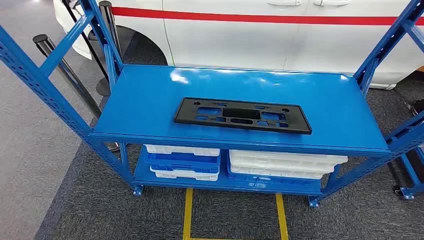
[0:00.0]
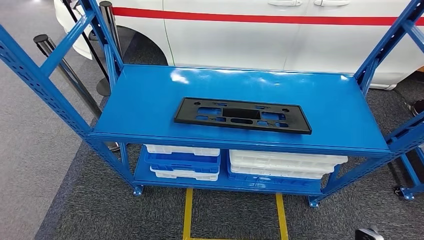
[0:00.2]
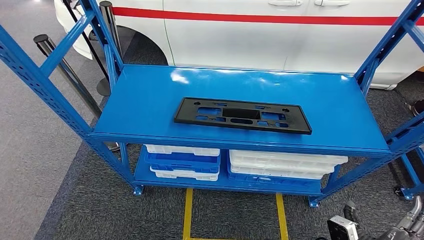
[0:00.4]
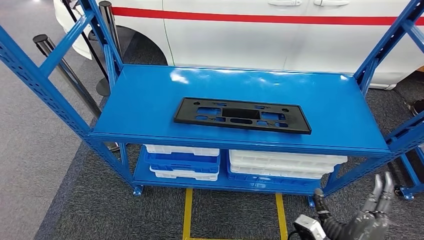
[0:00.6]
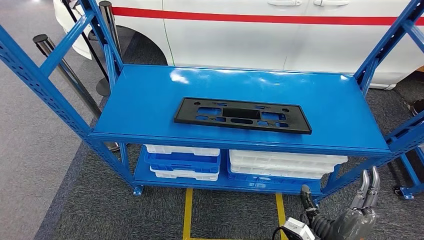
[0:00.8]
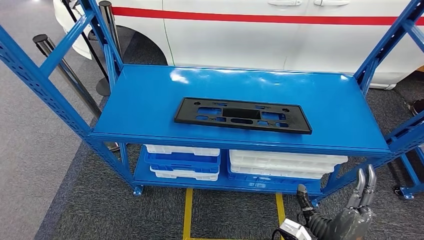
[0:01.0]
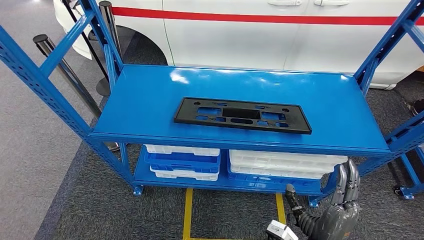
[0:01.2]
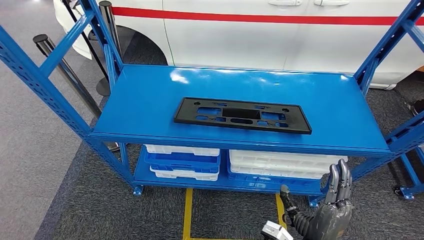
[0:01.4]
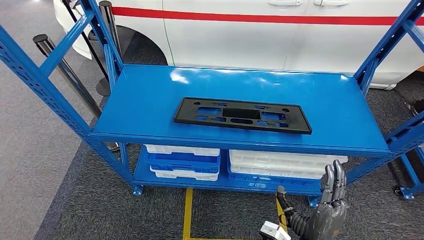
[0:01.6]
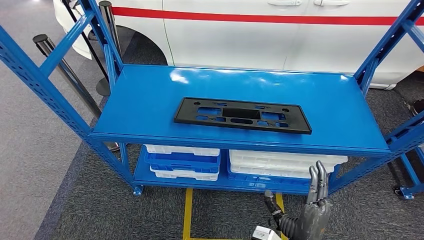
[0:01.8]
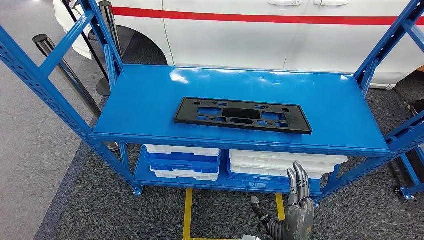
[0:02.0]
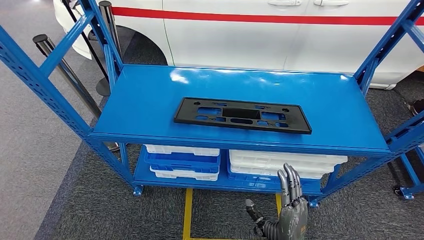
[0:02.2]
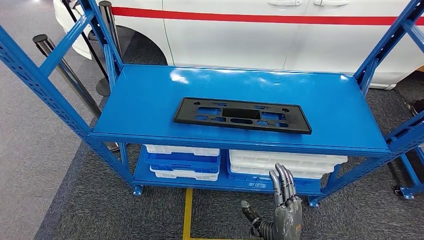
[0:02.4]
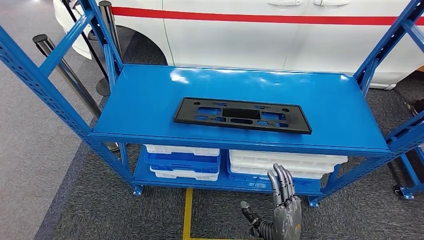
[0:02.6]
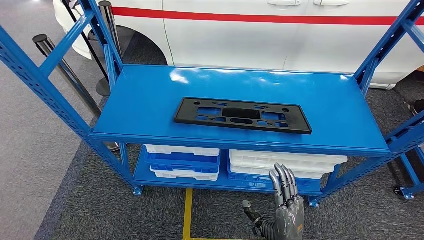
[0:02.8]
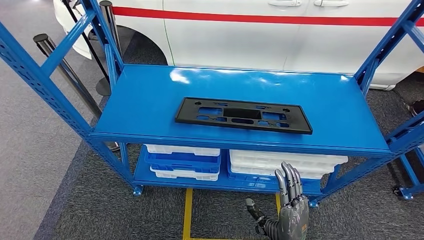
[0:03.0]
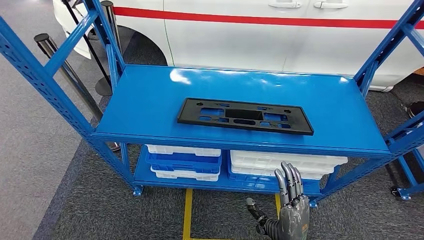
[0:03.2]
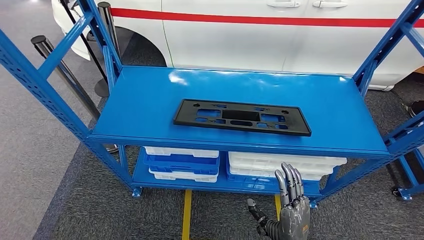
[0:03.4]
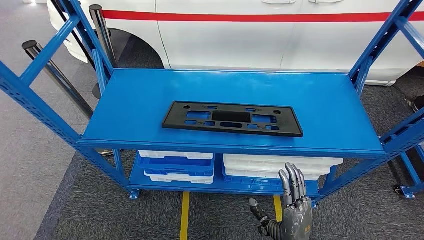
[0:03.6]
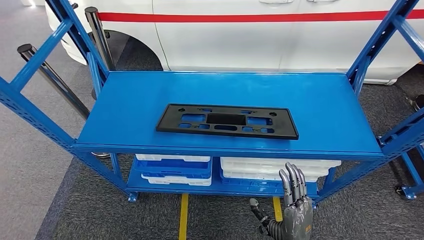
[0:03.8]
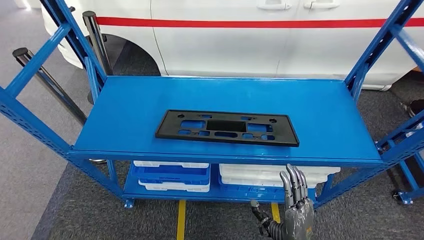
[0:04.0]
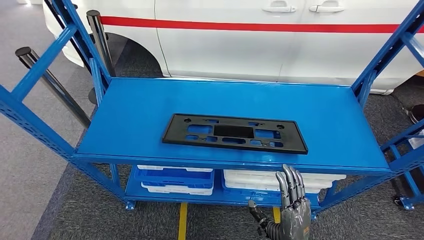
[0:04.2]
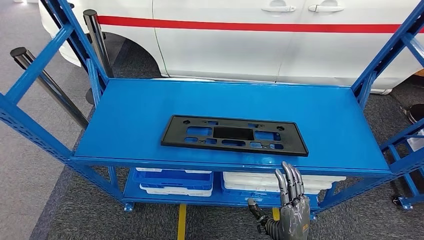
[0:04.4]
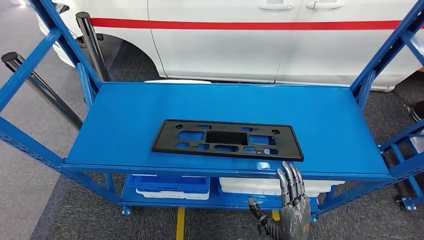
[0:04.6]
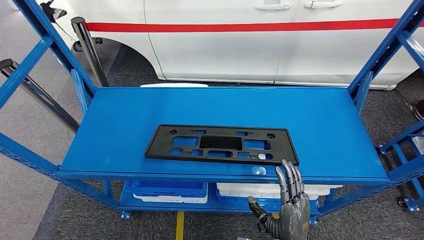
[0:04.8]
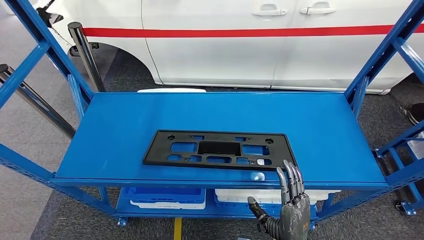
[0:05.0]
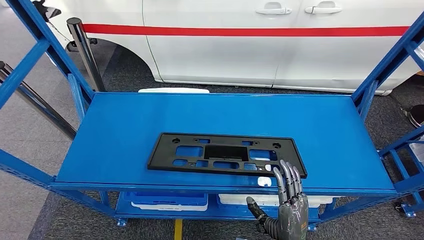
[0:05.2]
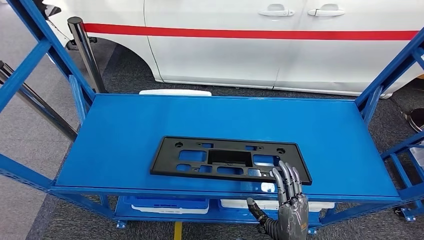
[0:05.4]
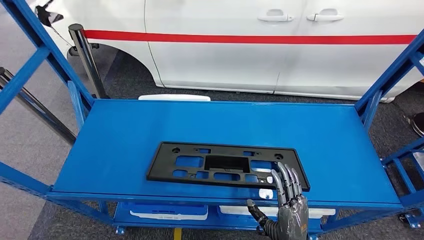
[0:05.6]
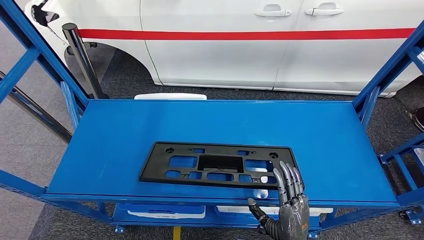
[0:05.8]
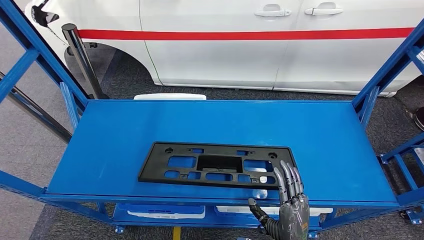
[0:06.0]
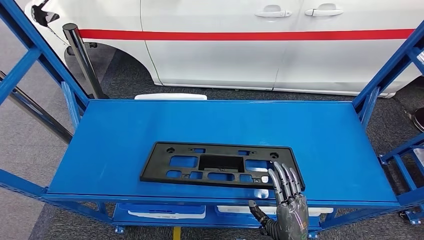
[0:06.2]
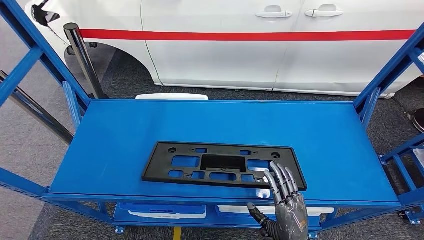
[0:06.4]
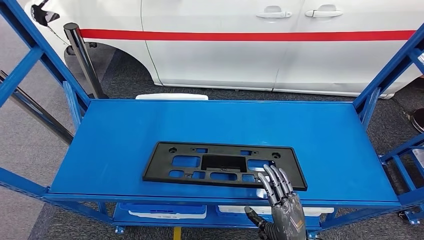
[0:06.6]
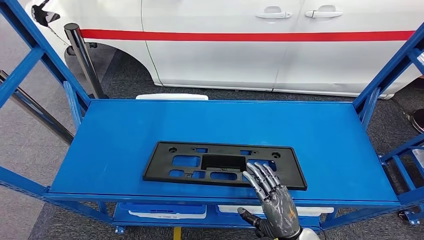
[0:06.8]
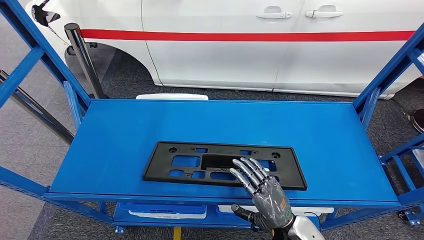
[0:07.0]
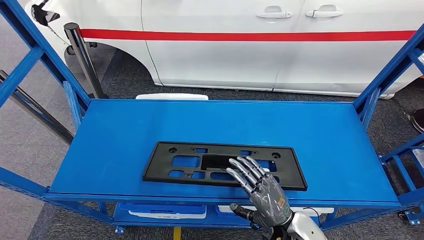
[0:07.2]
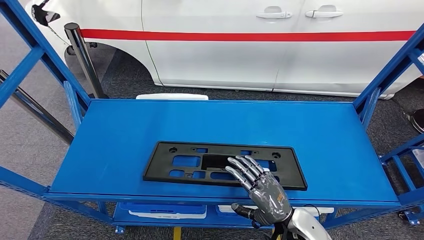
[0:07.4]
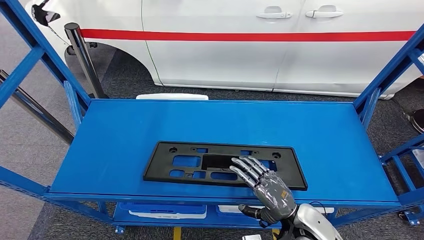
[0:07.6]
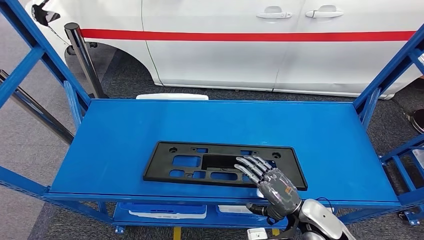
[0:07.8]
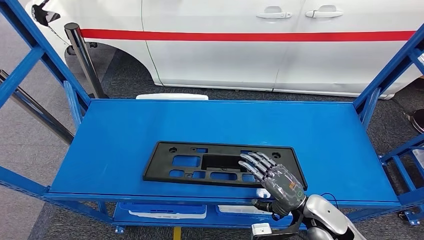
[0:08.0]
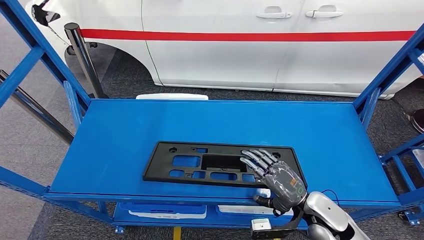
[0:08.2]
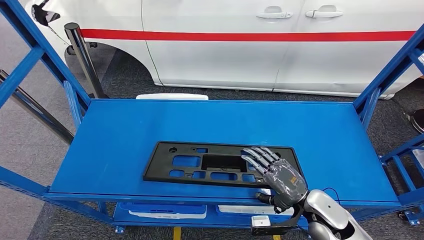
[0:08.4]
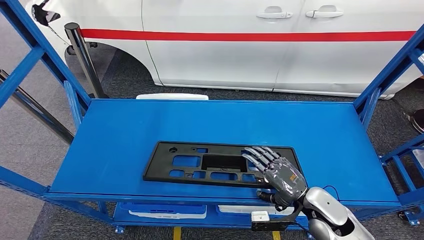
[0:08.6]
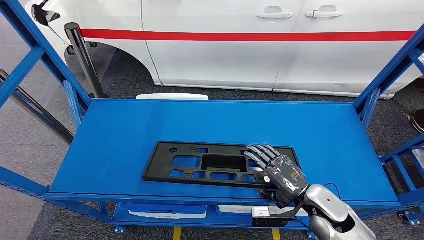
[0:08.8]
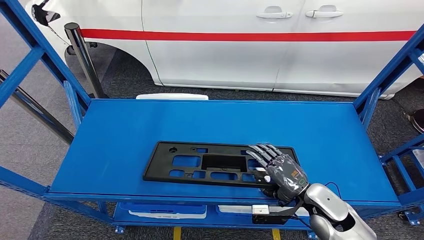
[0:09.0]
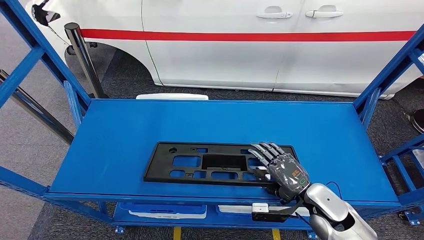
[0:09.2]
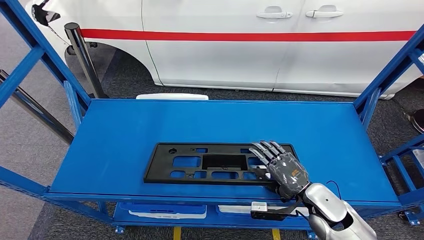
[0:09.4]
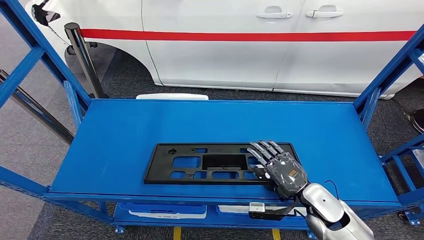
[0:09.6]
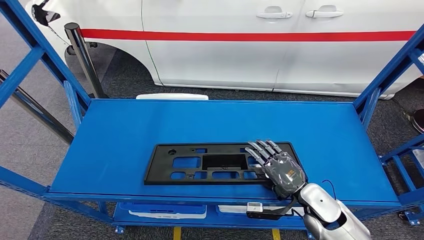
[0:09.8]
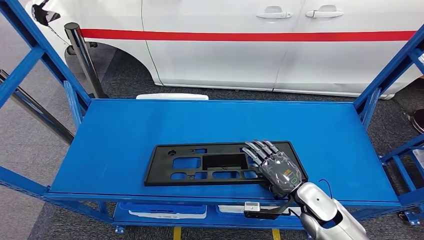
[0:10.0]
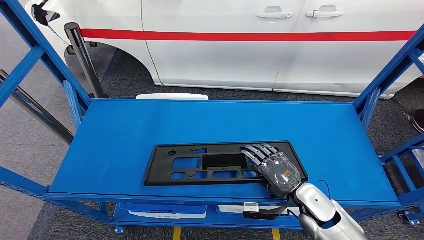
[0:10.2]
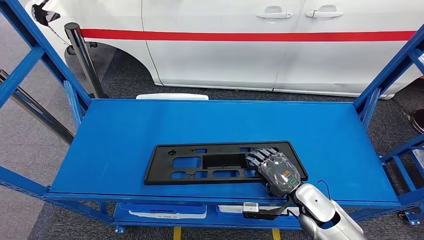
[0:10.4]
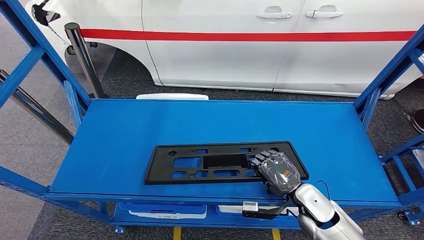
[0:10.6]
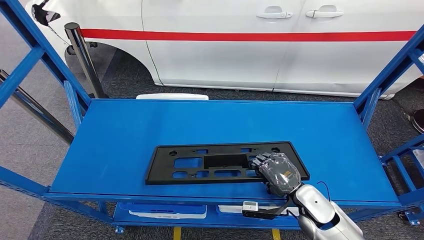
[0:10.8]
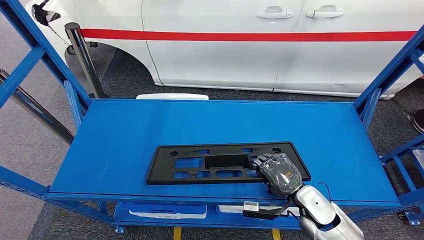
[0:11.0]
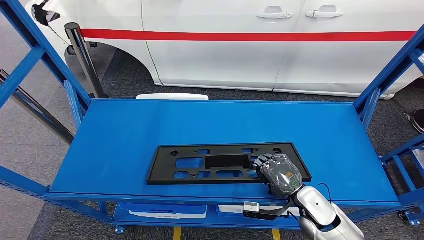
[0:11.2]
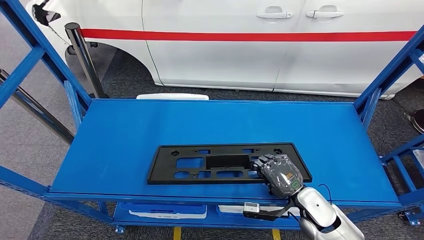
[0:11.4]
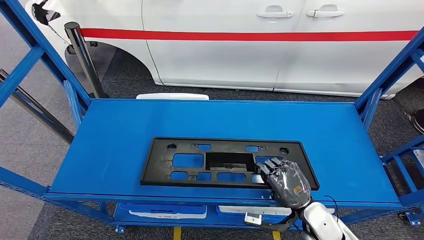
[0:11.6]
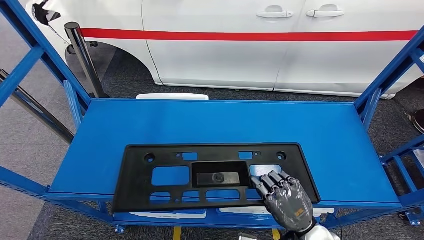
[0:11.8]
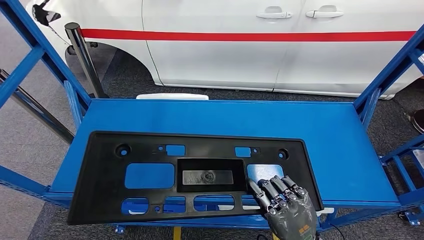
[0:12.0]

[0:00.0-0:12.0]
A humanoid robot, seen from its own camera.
0:06.0 to 0:07.6: The right hand moves forward, roughly 5 cm.
0:07.6 to 0:09.0: The right hand changes place by some 5 cm.
0:09.0 to 0:10.4: The hands make only small movements.
0:10.4 to 0:12.0: The right hand heads backward, upward and to the left, covering about 15 cm.

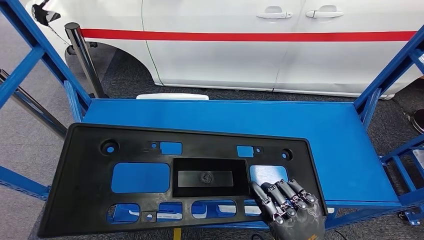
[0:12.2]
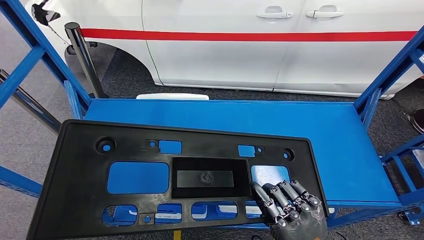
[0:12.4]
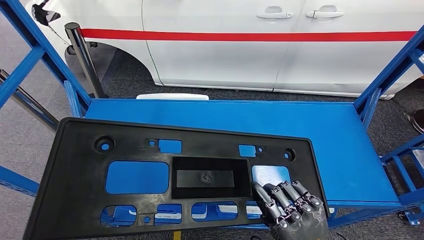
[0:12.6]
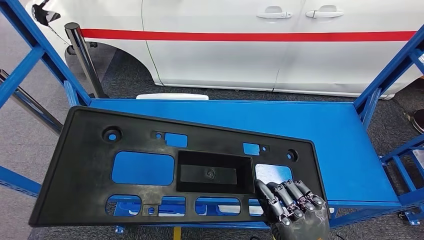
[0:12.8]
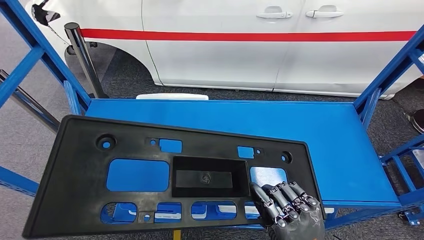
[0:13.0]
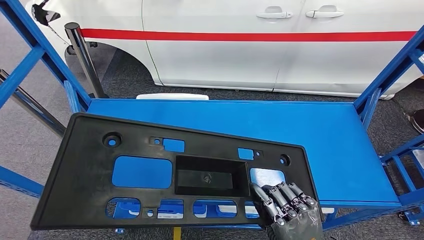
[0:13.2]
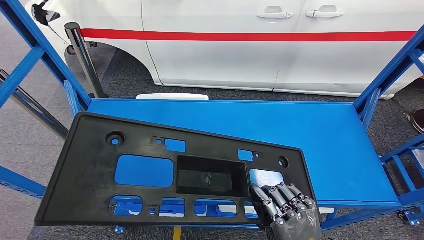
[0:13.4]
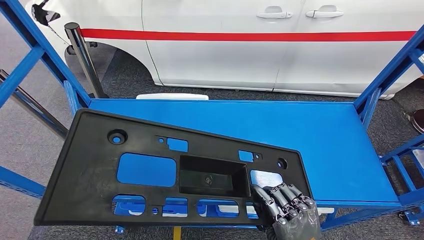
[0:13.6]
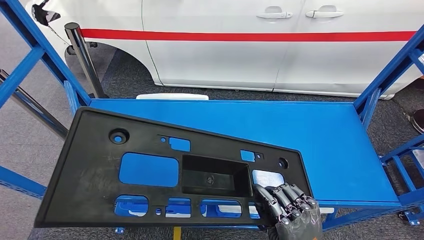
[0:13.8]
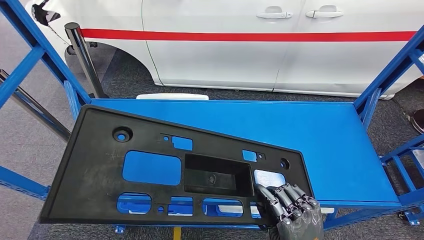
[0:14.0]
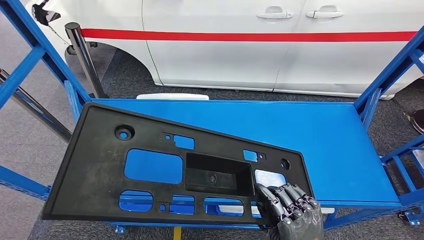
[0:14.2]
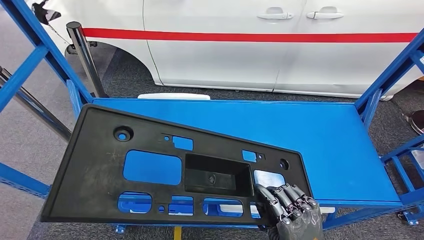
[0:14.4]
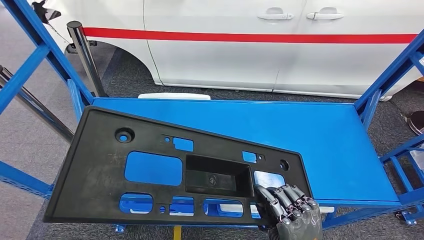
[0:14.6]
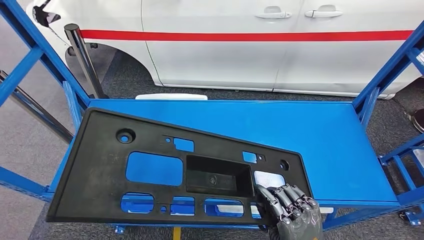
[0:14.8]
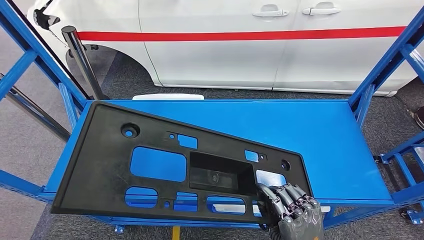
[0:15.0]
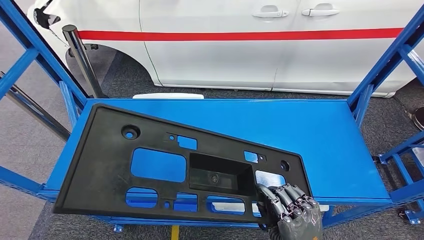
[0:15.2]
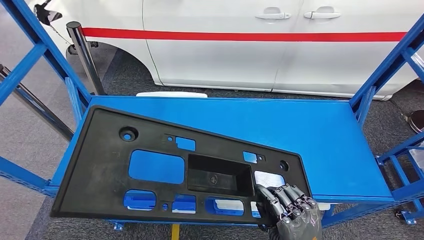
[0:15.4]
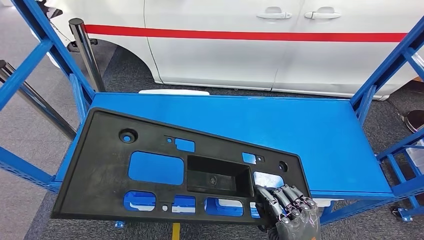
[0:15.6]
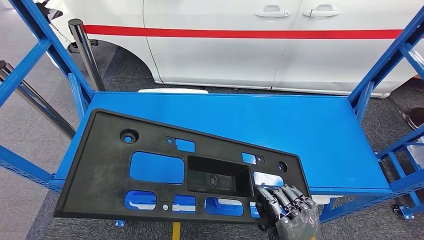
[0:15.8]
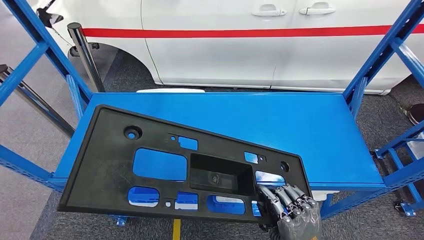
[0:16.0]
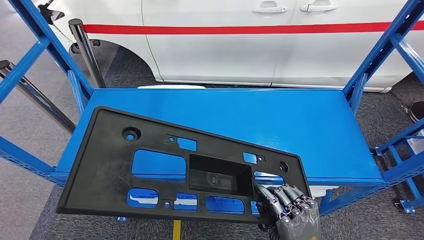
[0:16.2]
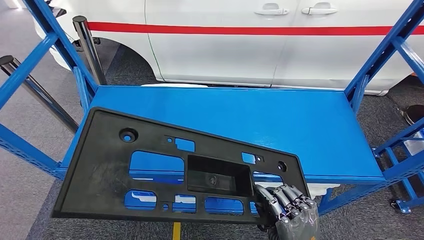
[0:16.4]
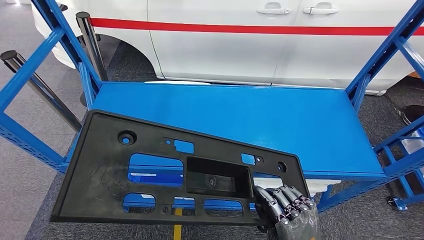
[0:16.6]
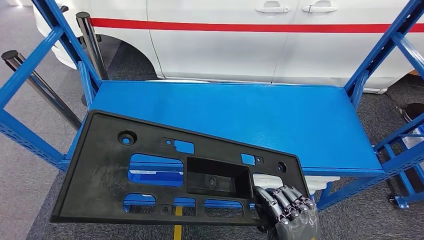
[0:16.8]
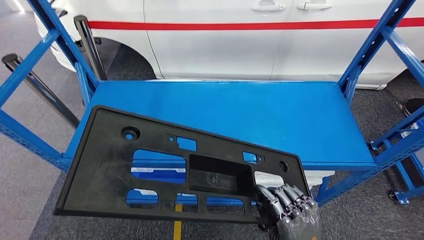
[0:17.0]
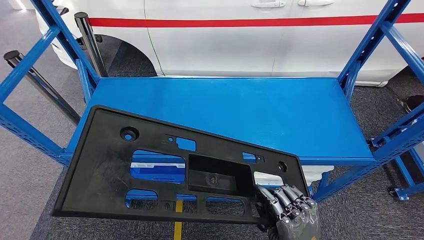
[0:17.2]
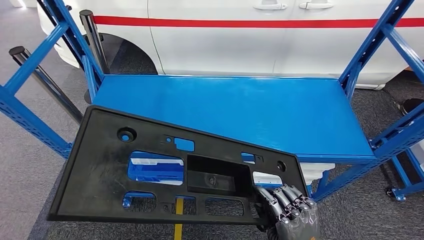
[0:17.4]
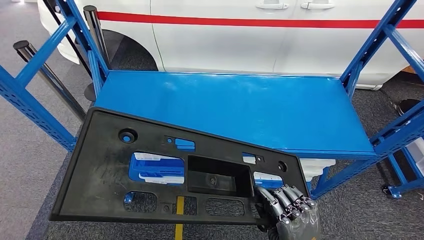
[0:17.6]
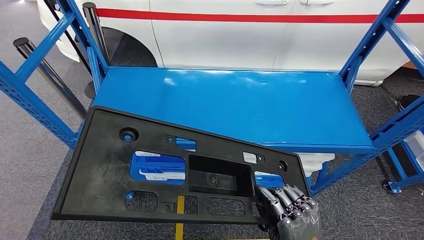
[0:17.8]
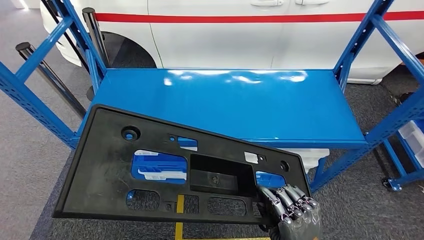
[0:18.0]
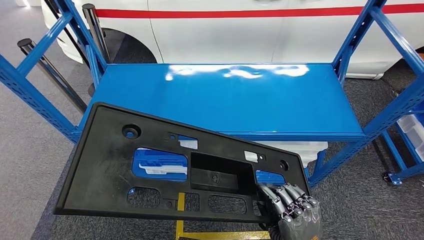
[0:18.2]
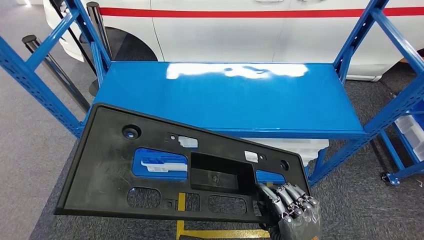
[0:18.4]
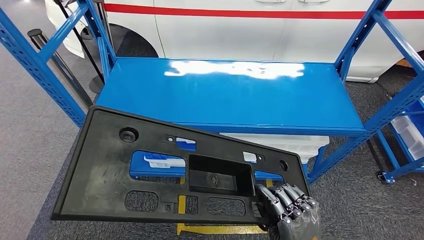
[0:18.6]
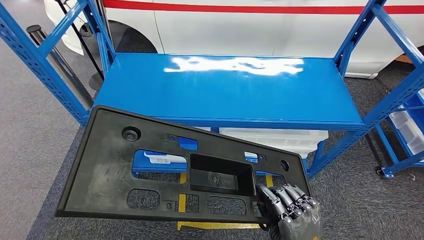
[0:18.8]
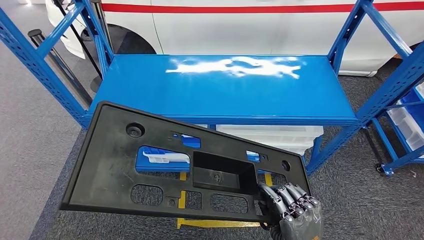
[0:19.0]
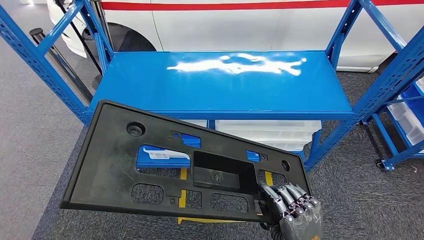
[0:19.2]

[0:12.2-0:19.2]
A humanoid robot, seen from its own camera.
0:12.2 to 0:13.6: The hands stay close to where they were, moving slightly.
